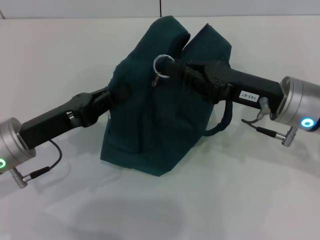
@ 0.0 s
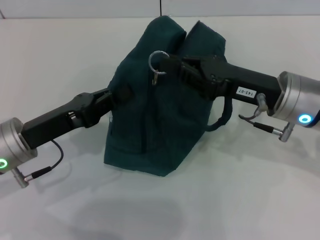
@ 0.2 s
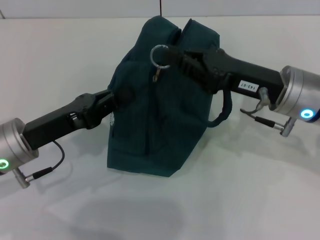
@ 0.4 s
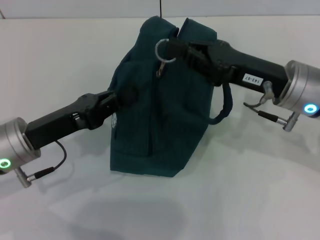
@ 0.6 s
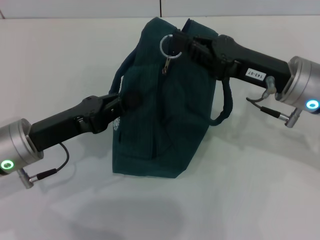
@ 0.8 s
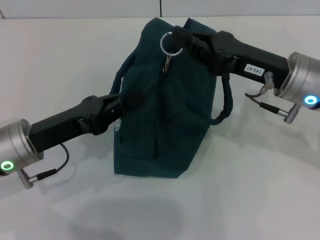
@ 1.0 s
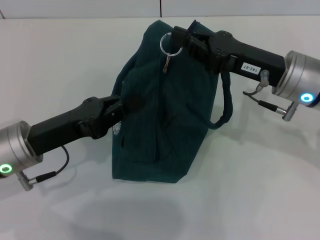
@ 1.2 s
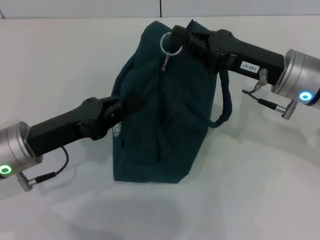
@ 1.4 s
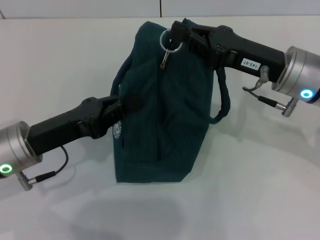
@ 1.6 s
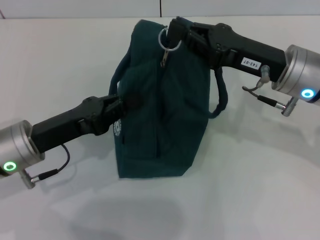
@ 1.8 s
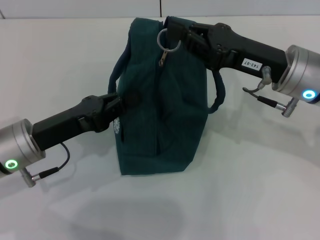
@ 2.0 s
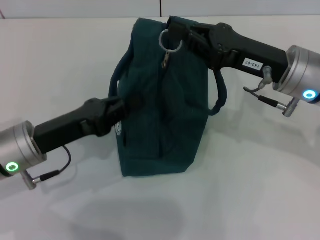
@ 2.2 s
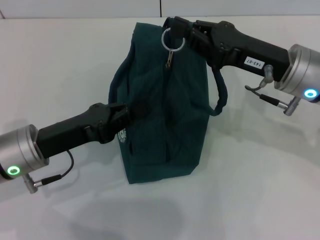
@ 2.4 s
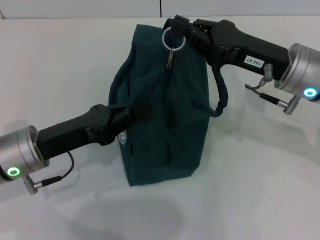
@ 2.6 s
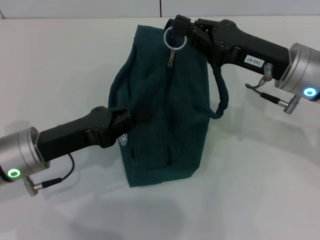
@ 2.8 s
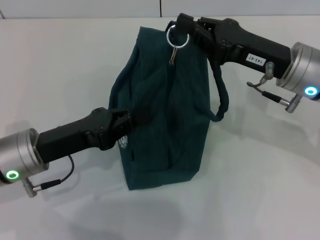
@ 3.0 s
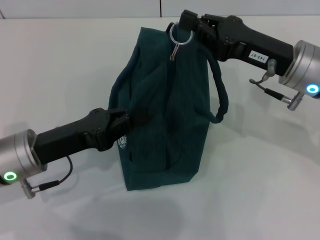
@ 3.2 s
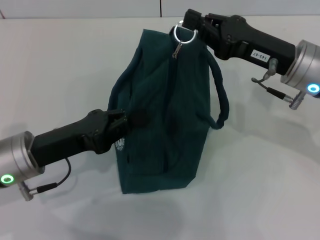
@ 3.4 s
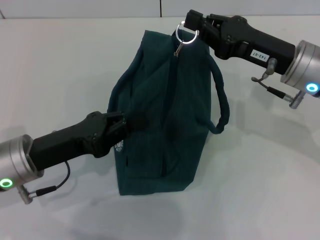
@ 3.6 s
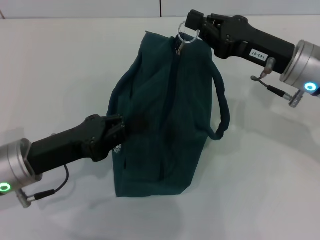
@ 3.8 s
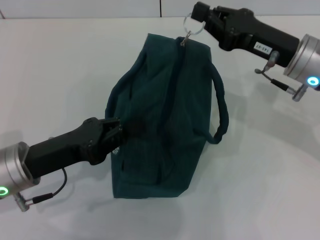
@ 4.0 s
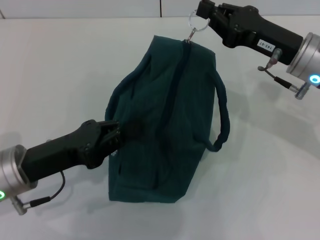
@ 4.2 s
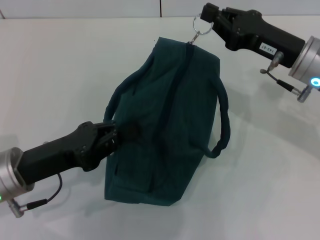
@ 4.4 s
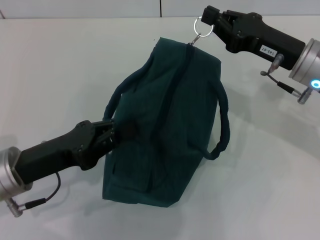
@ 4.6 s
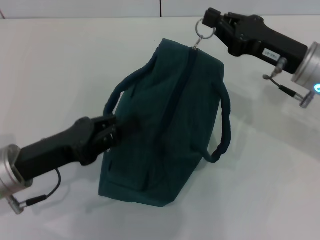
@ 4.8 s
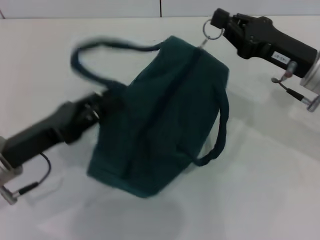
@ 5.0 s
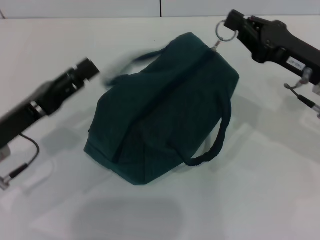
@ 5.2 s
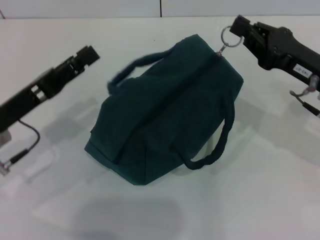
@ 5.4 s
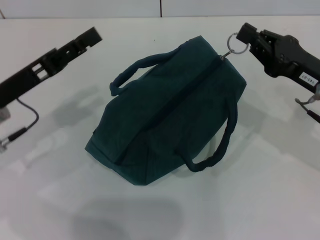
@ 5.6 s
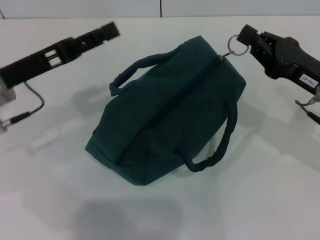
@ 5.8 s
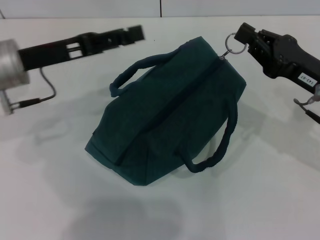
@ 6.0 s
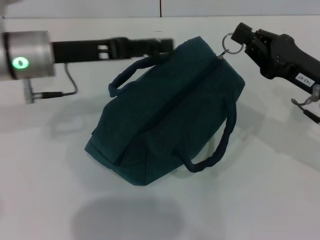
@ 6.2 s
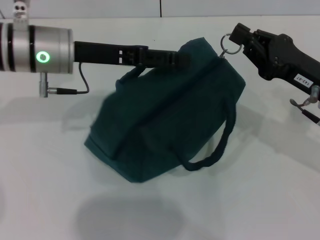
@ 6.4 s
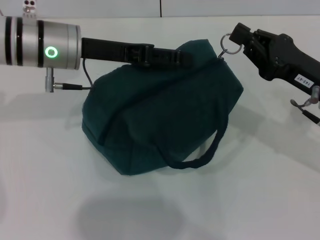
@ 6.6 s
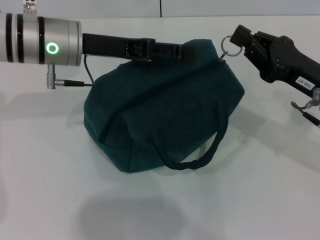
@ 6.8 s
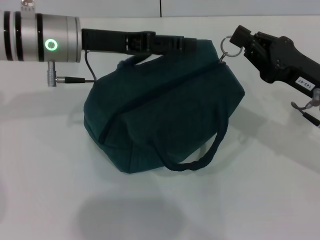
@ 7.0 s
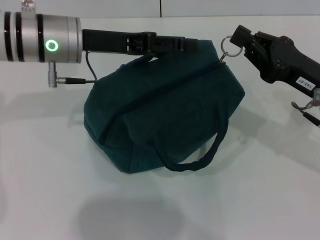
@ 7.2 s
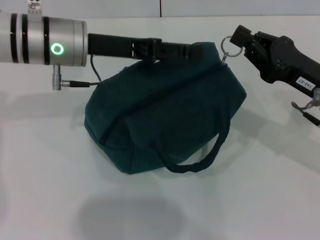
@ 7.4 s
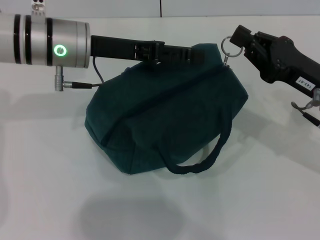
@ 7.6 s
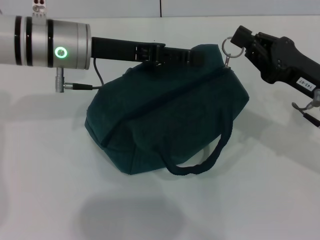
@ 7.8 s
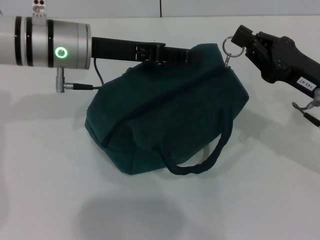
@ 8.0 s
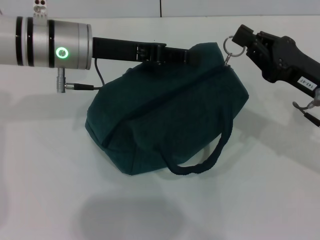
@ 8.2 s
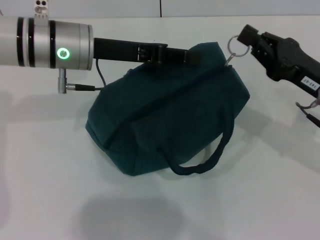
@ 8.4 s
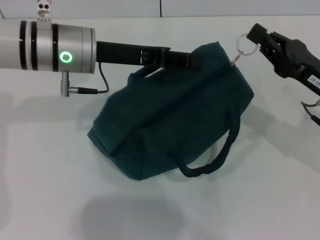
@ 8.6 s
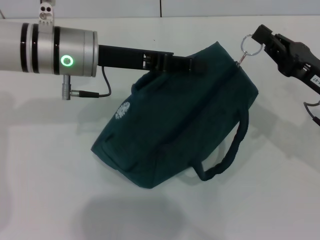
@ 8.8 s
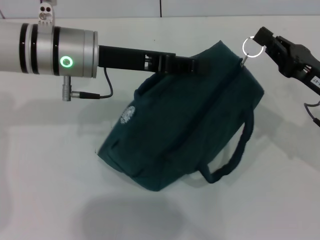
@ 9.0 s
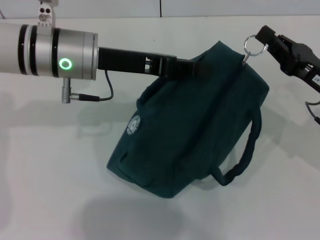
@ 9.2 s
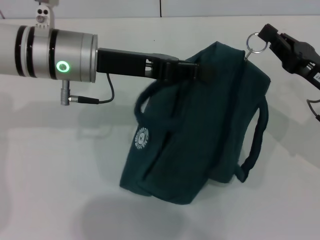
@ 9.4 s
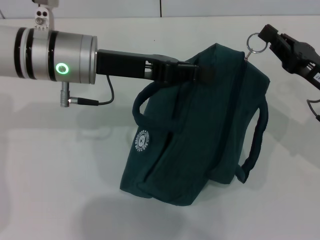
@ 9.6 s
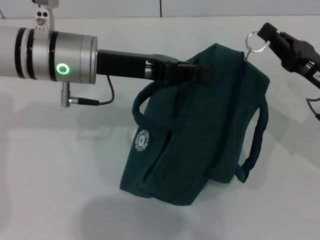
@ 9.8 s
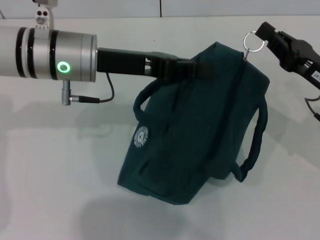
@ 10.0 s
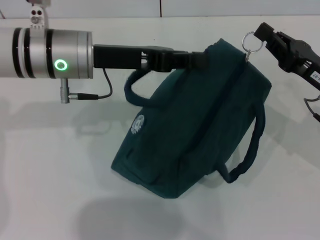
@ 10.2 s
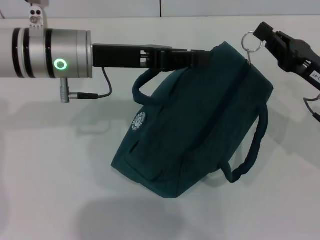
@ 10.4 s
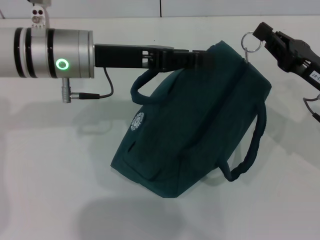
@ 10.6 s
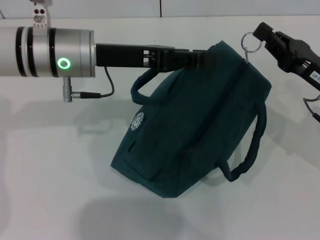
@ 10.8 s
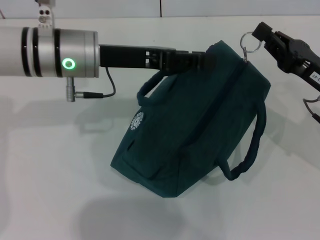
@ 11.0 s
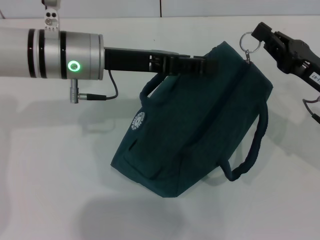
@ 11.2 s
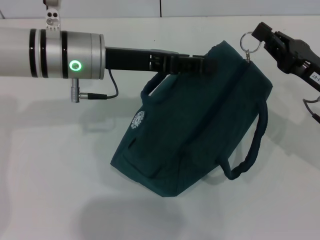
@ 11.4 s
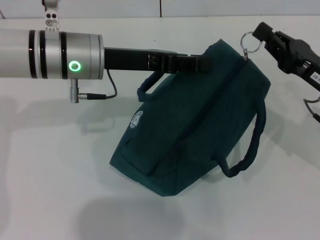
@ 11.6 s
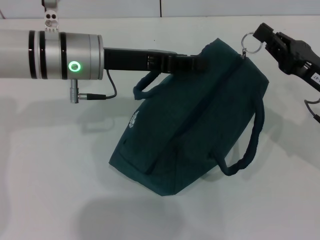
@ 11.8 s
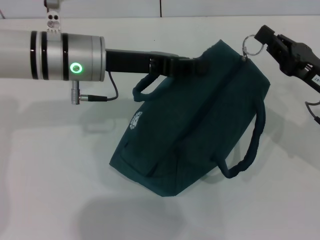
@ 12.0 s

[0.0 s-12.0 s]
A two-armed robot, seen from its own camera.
1.6 to 3.0 s: Both grippers stay put.
4.4 to 6.0 s: The left gripper moves forward and upward, approximately 15 cm, and opens up, while the right gripper changes place by some 5 cm.
6.0 to 7.6 s: The left gripper shifts about 10 cm to the right.
7.6 to 9.0 s: The left gripper closes its fingers.
9.0 to 12.0 s: The grippers stay close to where they were, moving slightly.

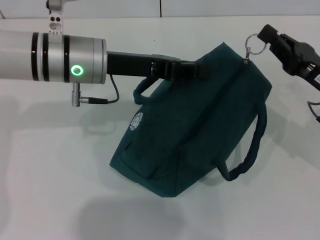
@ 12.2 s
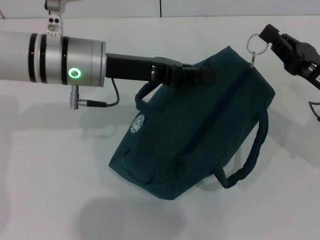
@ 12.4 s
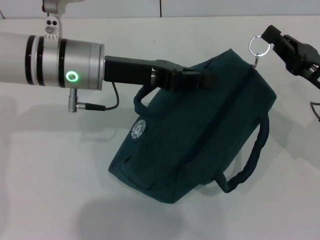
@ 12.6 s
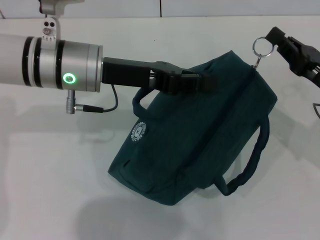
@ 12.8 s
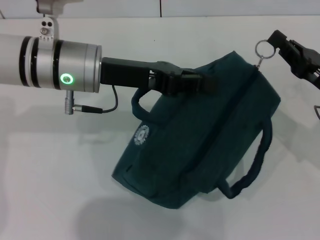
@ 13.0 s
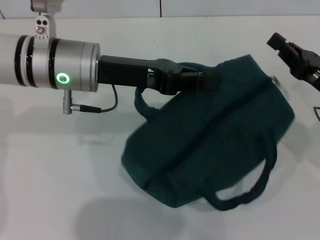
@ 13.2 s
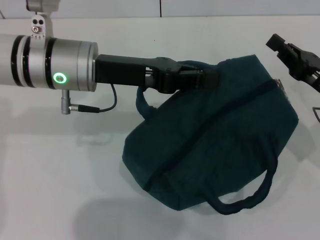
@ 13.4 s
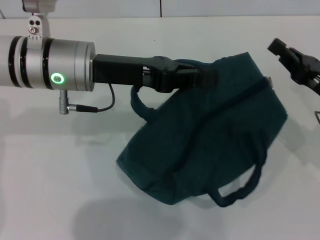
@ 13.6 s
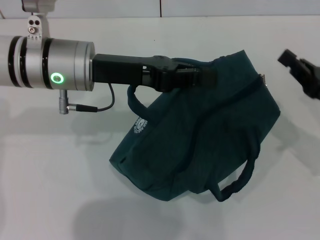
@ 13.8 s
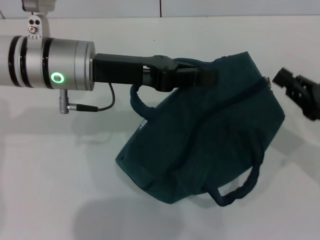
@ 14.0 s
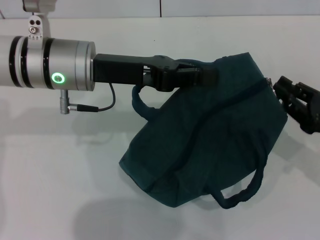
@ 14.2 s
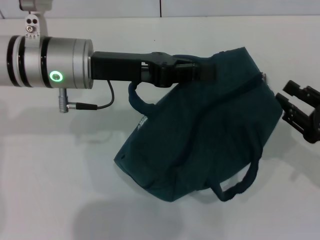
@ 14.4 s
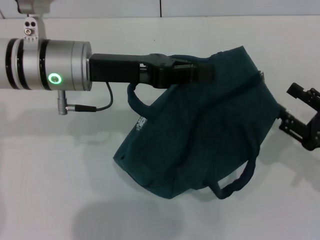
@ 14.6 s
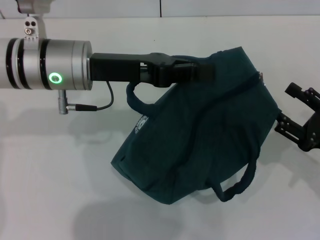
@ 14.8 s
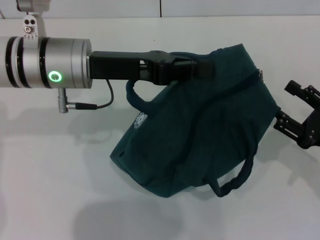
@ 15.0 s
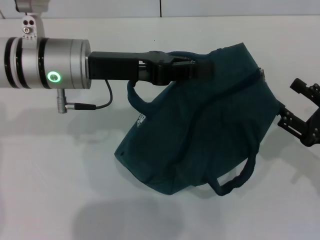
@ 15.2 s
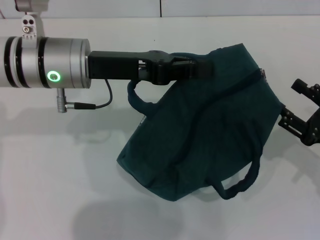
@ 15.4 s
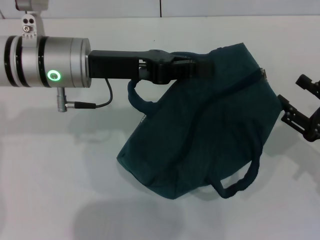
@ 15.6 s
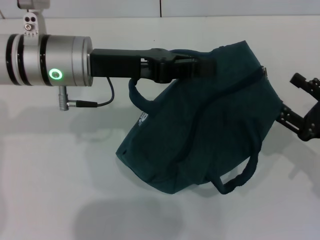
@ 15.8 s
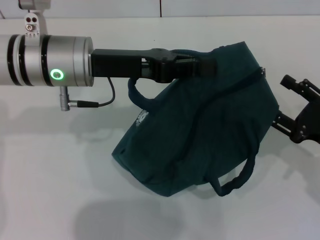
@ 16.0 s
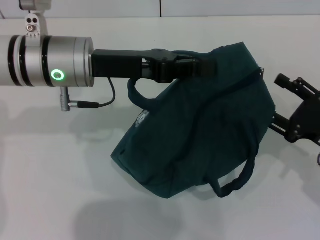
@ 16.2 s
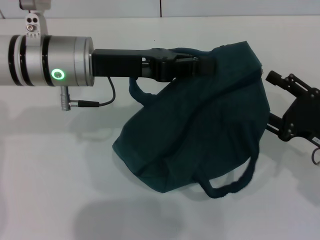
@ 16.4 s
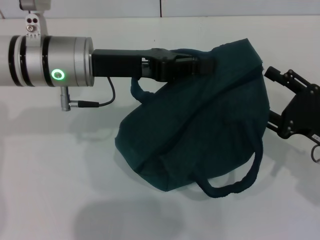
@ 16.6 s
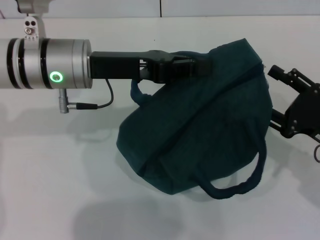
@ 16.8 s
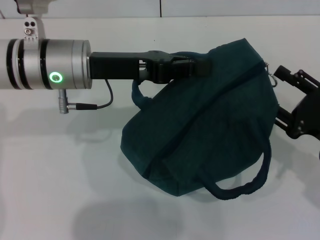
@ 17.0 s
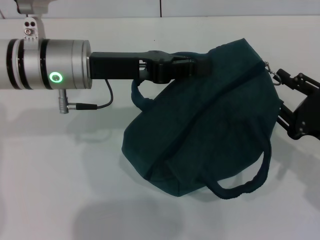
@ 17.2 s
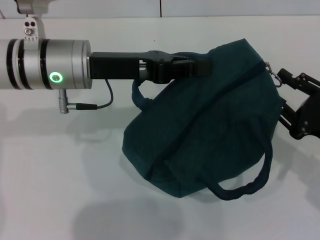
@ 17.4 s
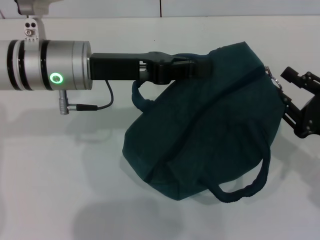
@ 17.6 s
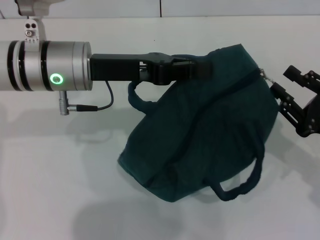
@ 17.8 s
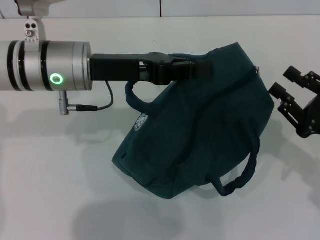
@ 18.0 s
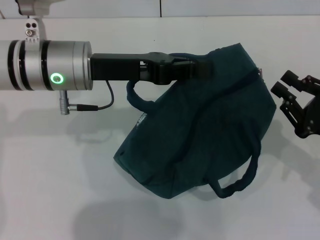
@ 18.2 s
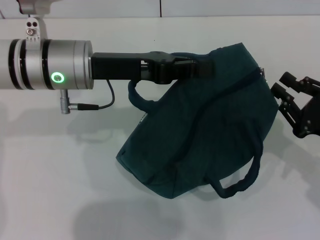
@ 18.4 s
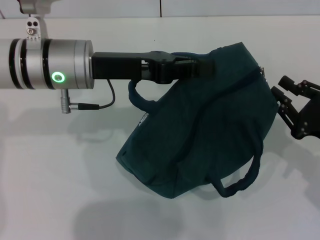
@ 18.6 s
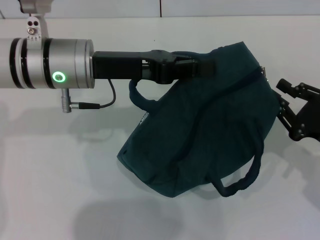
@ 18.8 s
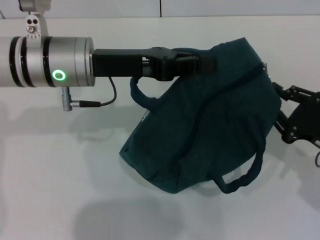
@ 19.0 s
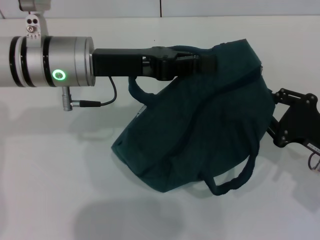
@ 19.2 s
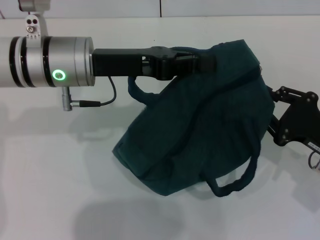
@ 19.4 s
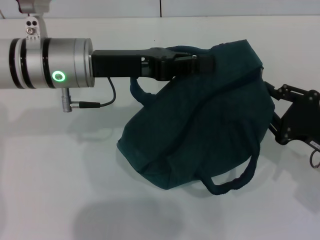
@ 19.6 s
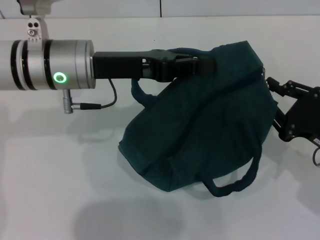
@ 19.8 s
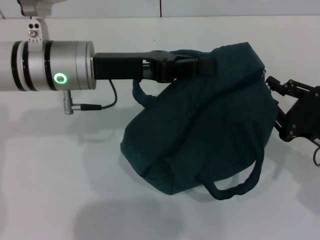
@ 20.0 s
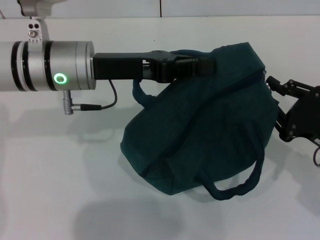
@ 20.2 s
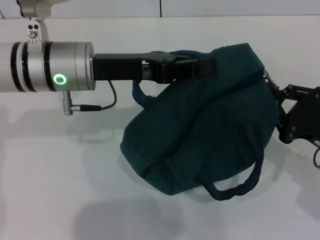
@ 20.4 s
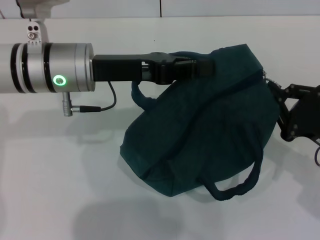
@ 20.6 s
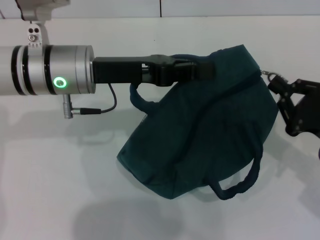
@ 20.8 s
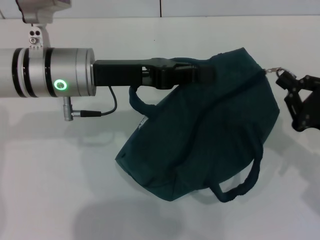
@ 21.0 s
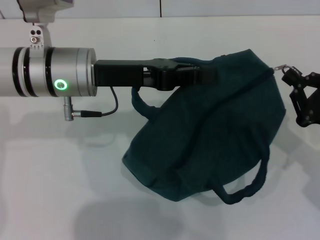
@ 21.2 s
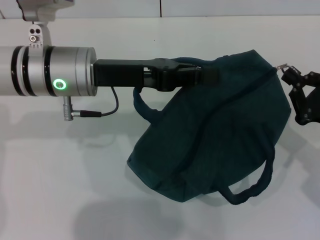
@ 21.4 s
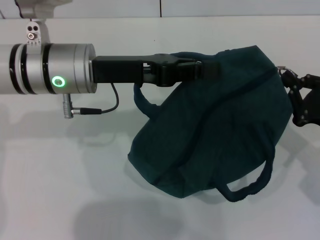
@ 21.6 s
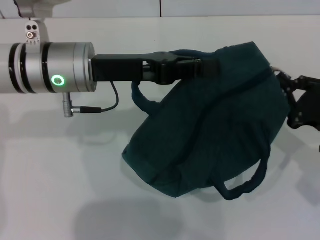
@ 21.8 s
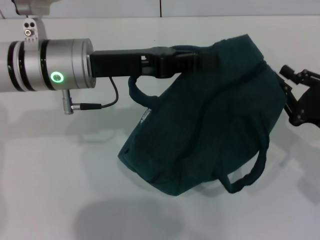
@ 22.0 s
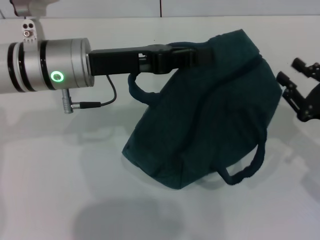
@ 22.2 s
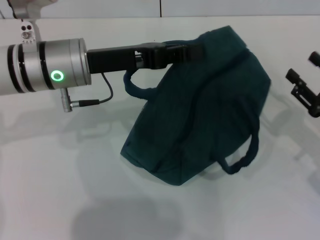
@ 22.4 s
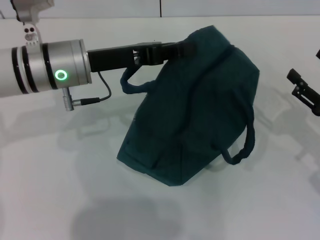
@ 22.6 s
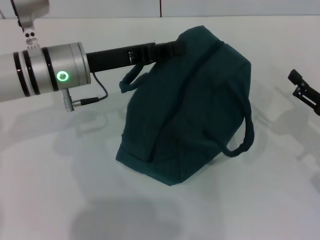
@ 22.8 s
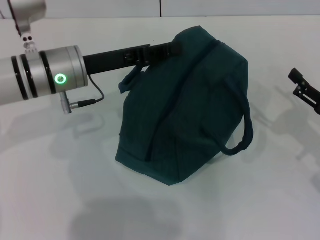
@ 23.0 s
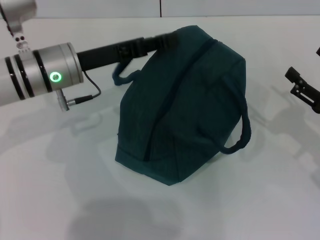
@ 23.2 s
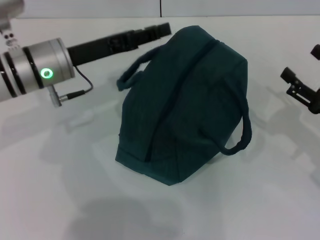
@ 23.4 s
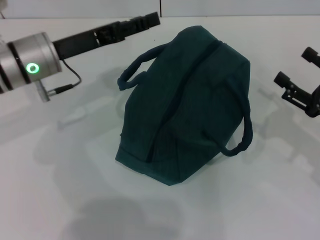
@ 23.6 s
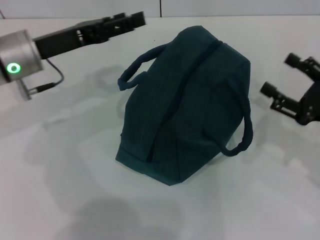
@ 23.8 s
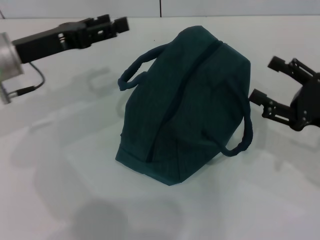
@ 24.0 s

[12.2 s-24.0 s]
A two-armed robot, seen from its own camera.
Step, 12.2 to 22.0 s: Zip up the lunch bag with your right hand.
Step, 22.2 to 23.2 s: Hold the lunch bag with your left hand.
12.2 to 13.6 s: There are only small adjustments of the grippers.
13.6 to 15.2 s: The right gripper moves backward, about 5 cm, and opens.
15.2 to 16.6 s: The grippers move only a little.
16.6 to 18.2 s: The right gripper closes.
18.2 to 21.0 s: The grippers move only a little.
21.0 to 22.6 s: The right gripper opens up.
22.6 to 24.0 s: The left gripper is displaced to the left by about 10 cm, and opens its fingers.
